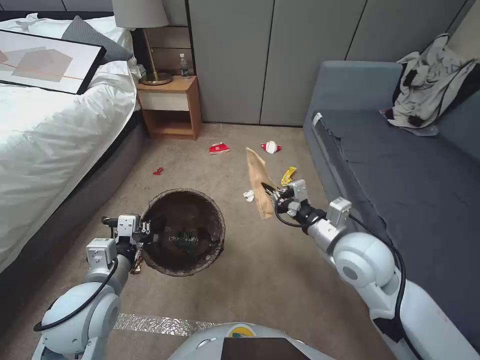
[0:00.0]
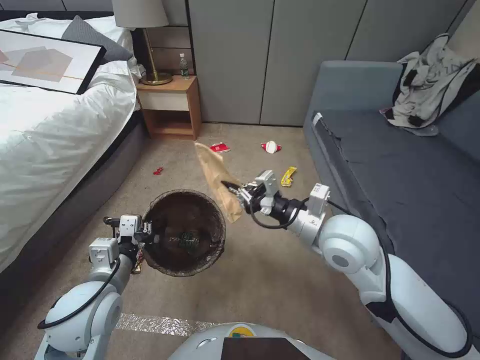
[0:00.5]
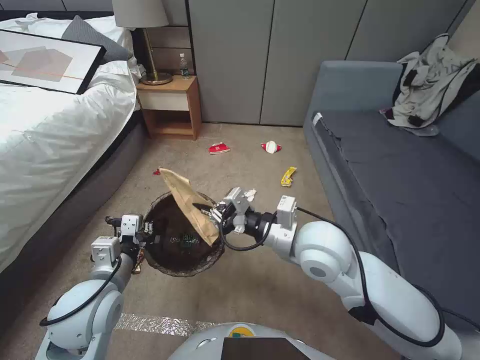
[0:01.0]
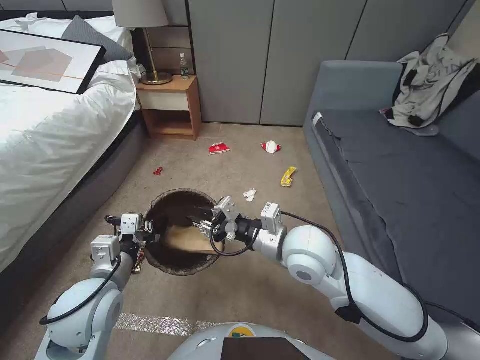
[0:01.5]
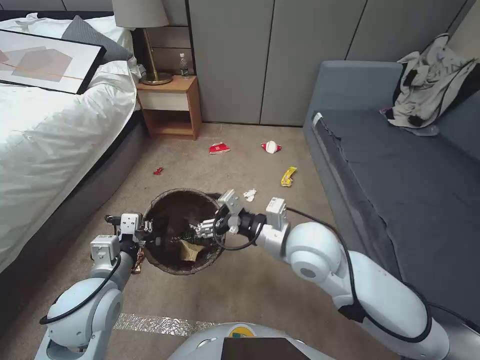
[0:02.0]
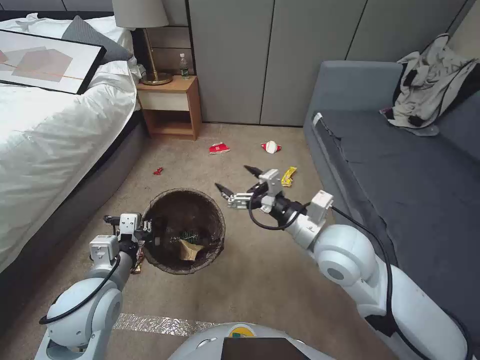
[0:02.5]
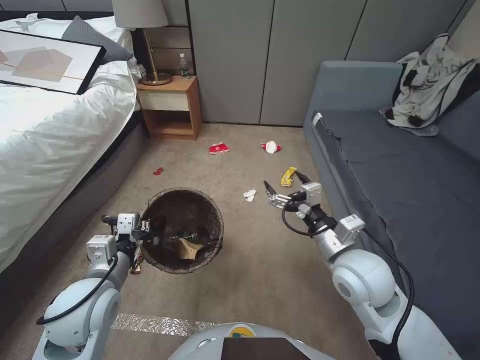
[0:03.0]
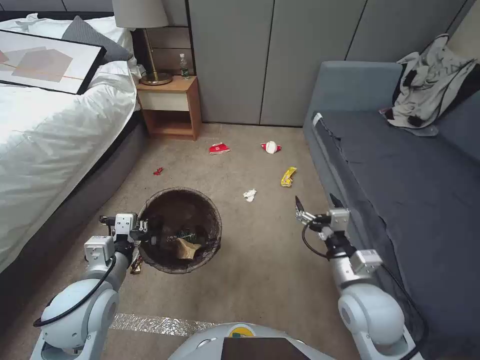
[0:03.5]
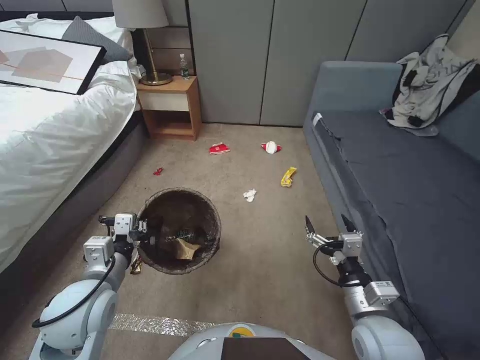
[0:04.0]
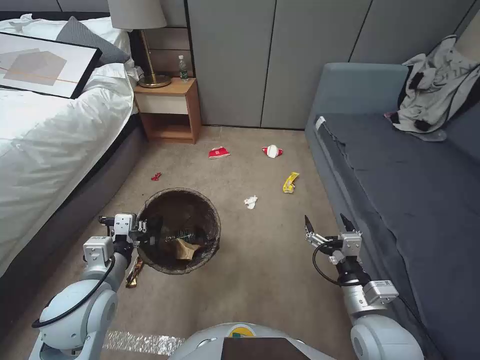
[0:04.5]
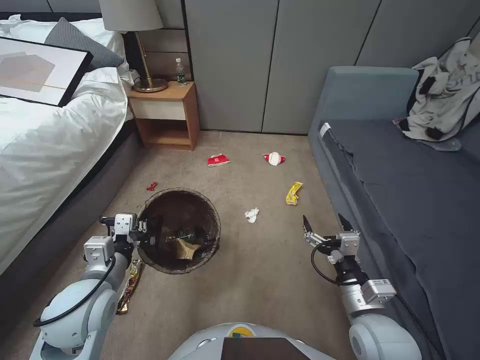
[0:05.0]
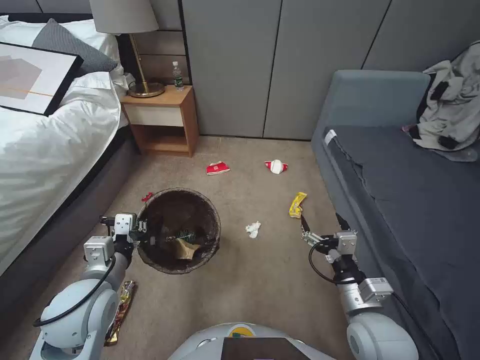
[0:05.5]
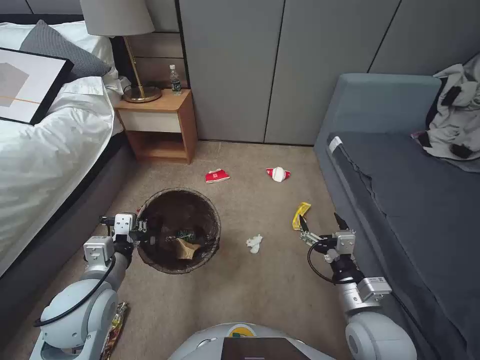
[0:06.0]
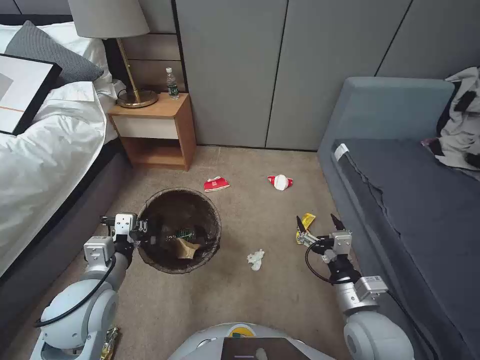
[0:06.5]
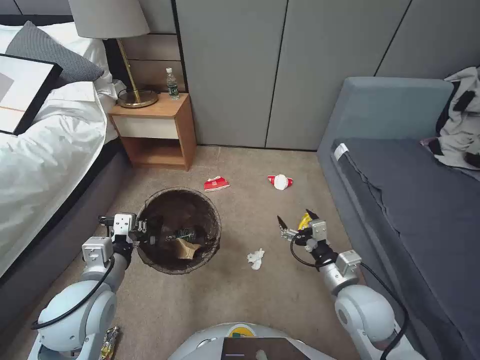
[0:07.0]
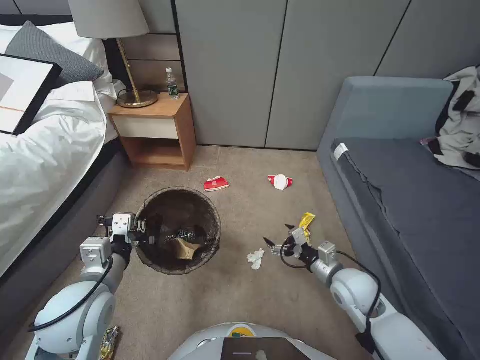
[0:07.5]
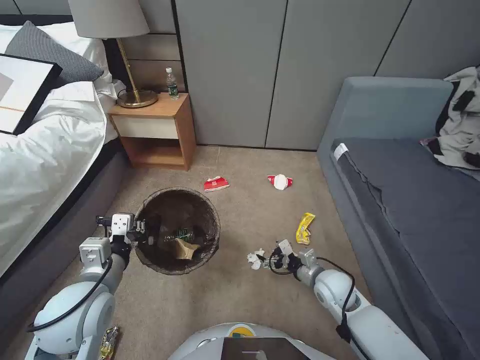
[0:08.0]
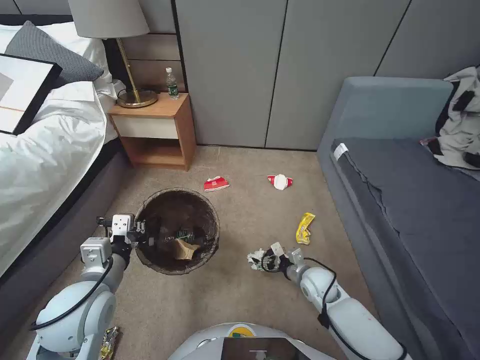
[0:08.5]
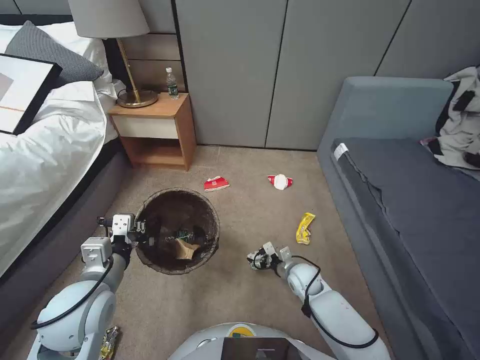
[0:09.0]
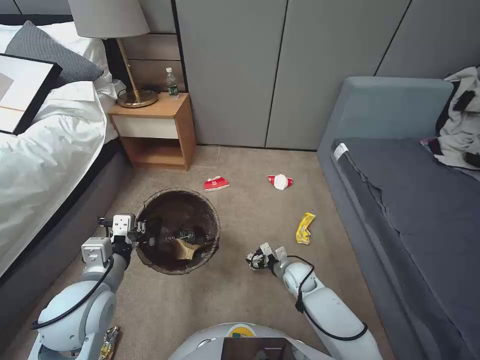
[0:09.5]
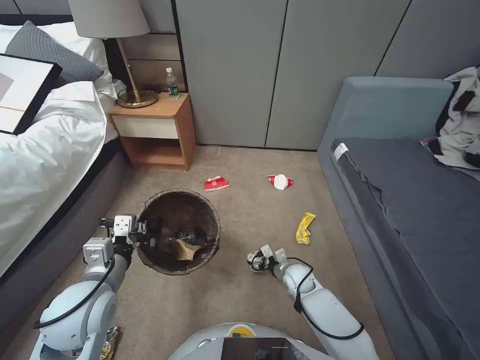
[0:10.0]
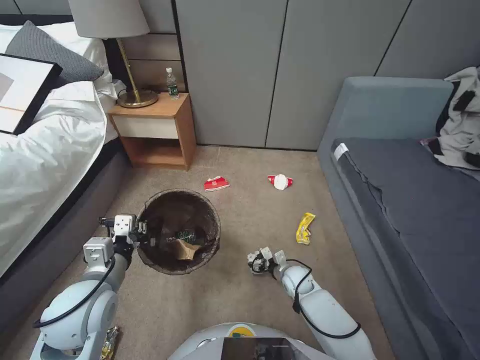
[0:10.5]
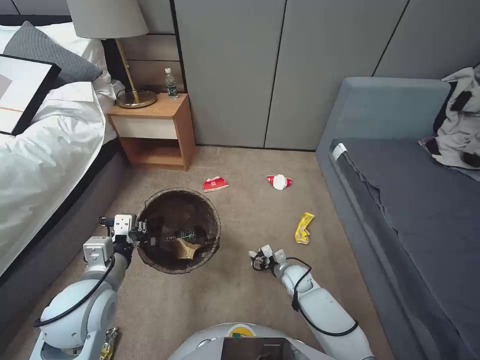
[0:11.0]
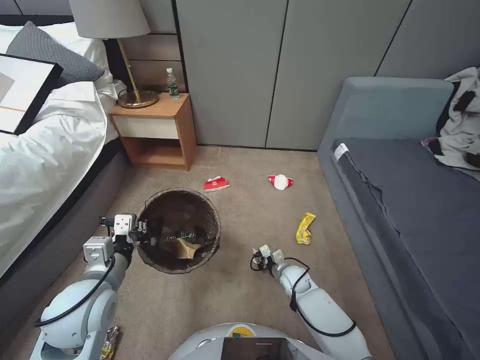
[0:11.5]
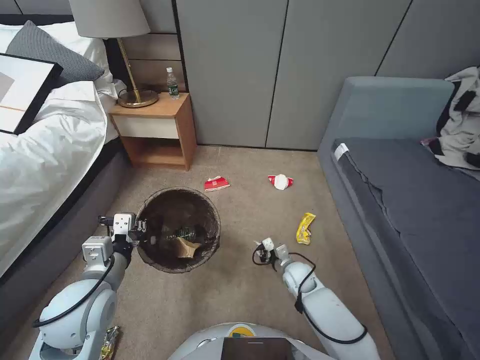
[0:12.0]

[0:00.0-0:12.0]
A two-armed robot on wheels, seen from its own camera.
Task of the whole recording: Pick up the trash bin, then pick up the garbage from the floor and place it into the trash bin.
0:00.0 to 0:02.0: The right gripper is displaced to the left by about 10 cm, and opens up.
0:02.0 to 0:04.0: The right gripper travels to the right, backward and downward by approximately 20 cm.
0:06.0 to 0:08.0: The right gripper travels forward and downward by about 15 cm.
0:08.0 to 0:10.0: The right gripper travels downward, forward and to the left by some 15 cm.
0:10.0 to 0:12.0: The right gripper closes its fingers.

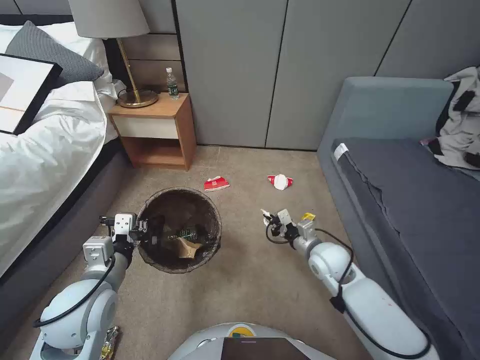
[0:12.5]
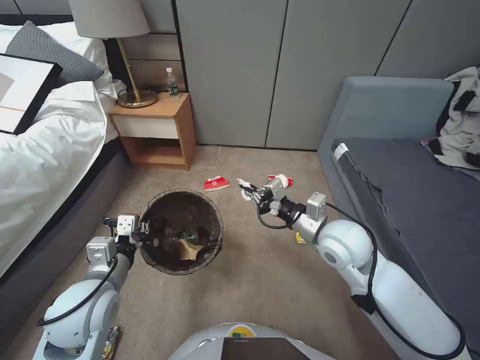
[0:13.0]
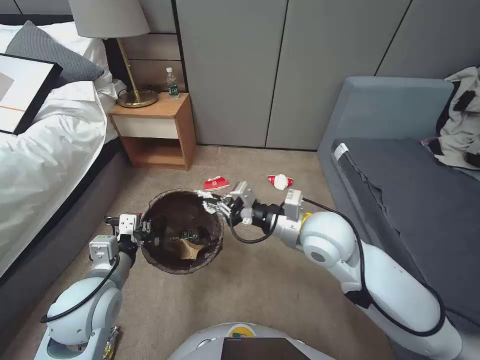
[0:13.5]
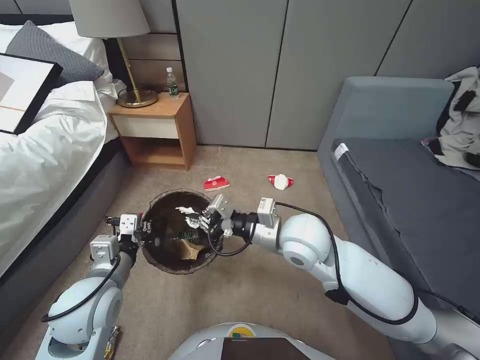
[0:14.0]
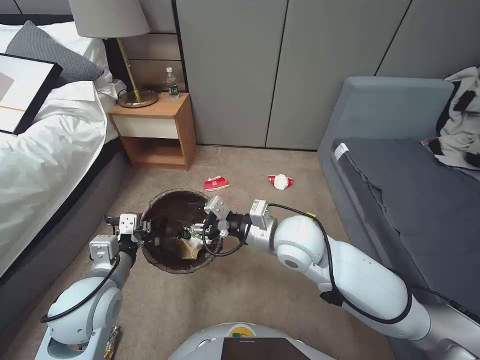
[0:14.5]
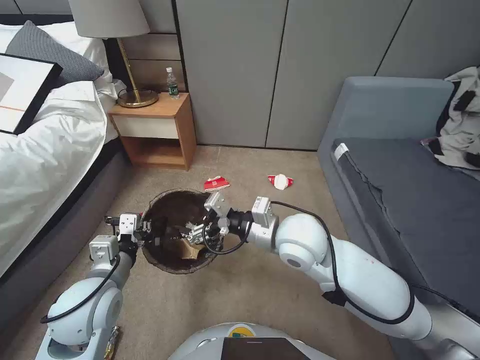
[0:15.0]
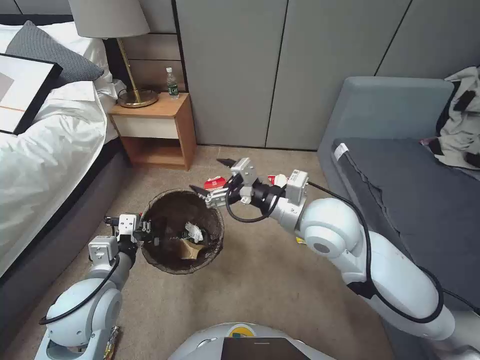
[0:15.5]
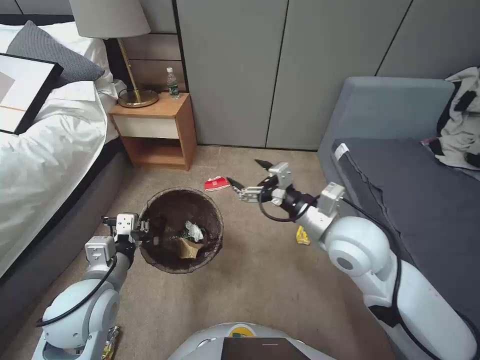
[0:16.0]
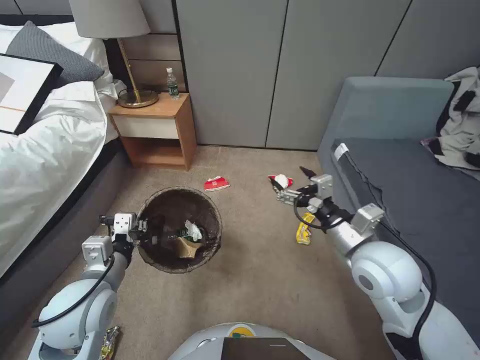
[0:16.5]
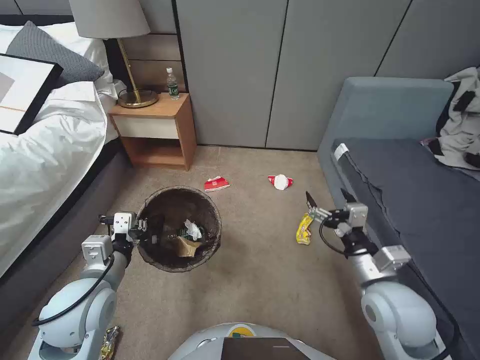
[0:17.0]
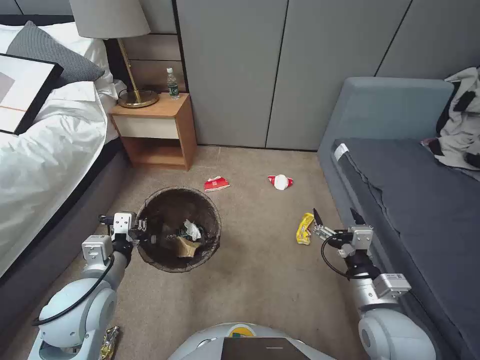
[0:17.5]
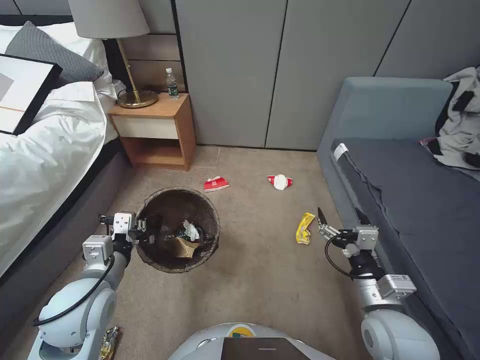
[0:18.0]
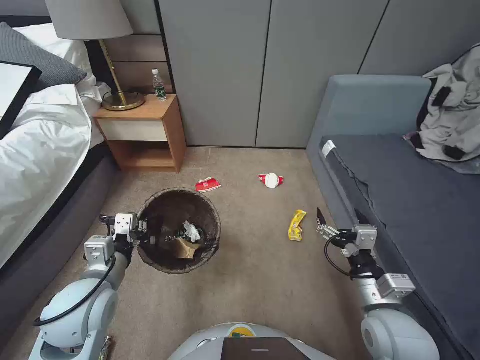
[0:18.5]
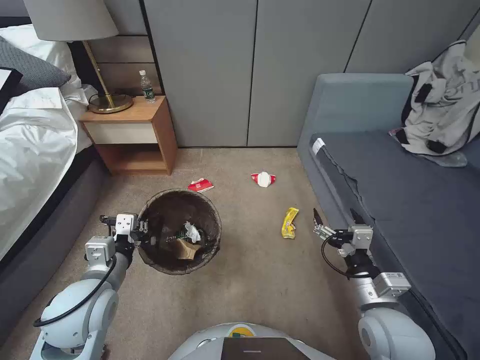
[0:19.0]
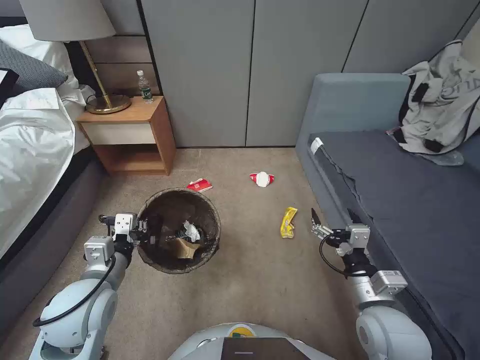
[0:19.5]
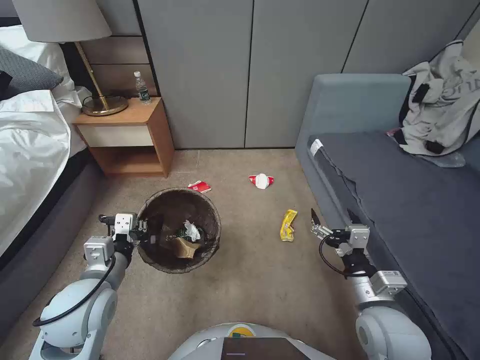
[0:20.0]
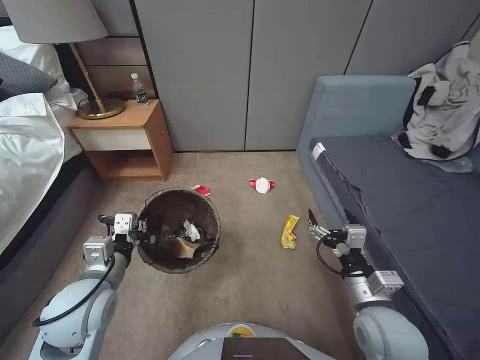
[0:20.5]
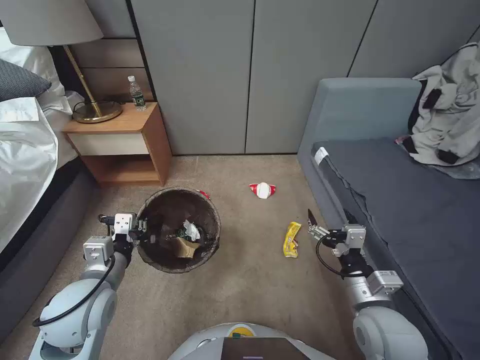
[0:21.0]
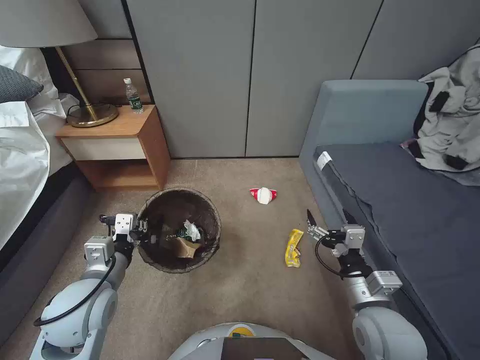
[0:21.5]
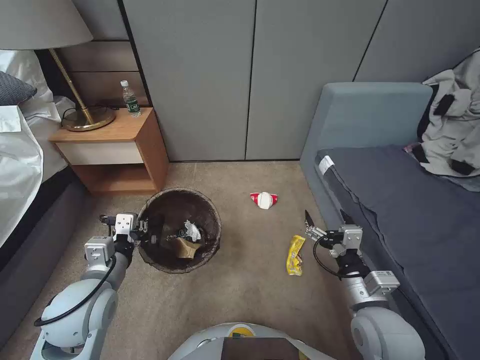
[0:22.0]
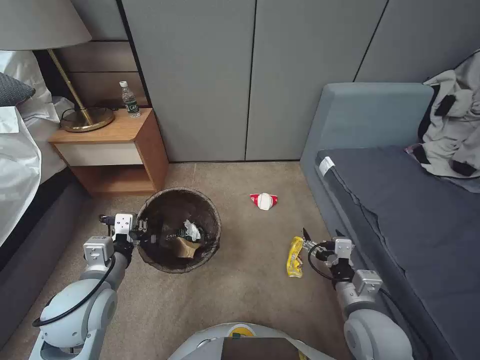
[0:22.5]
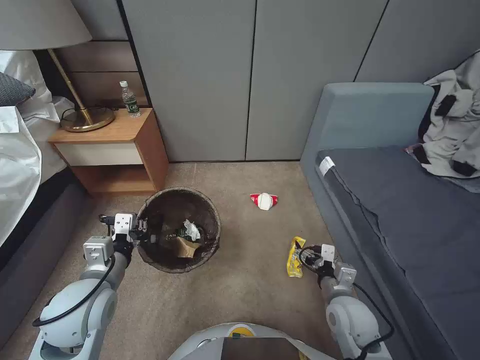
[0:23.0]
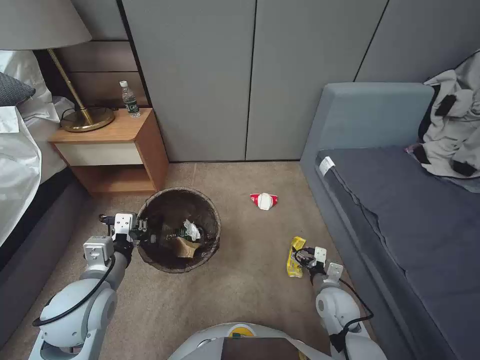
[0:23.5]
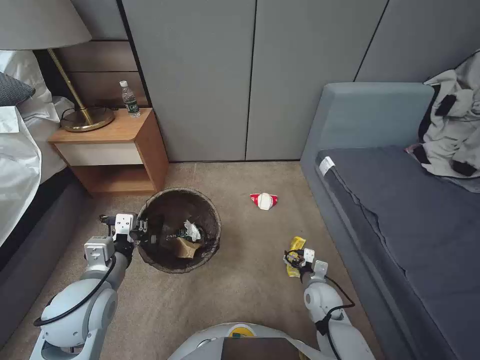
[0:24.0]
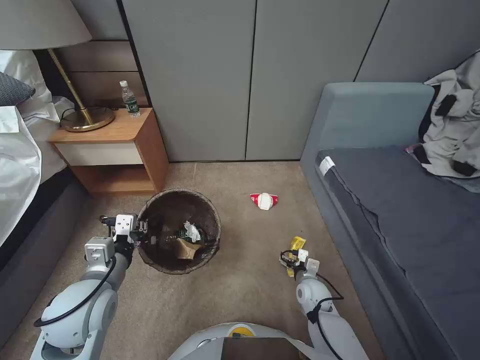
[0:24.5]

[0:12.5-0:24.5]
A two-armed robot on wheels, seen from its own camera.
Task of the whole recording: Pick up the trash bin, then pick up the garbage from the floor and place it into the trash bin.
0:12.5 to 0:14.5: The right gripper goes about 20 cm upward and to the left, and opens up.
0:14.5 to 0:16.5: The right gripper is displaced to the right by some 15 cm, and opens its fingers.
0:16.5 to 0:18.5: The right gripper moves downward and backward, some 15 cm.
0:22.5 to 0:24.5: The right gripper moves downward and forward, about 25 cm.

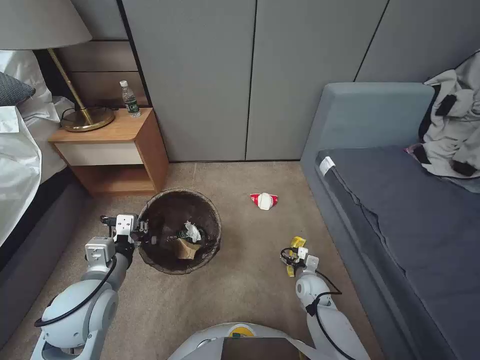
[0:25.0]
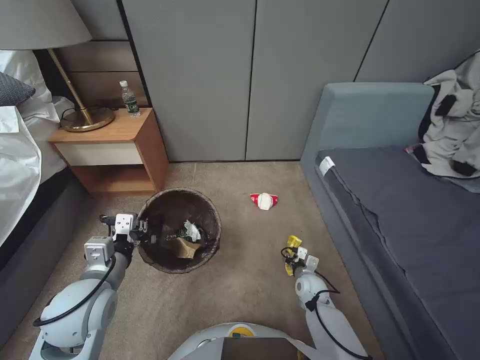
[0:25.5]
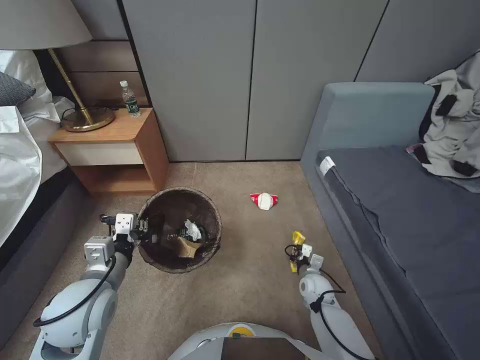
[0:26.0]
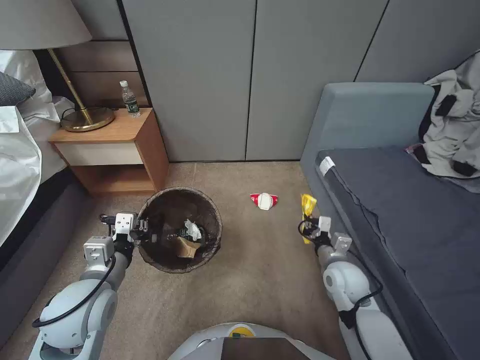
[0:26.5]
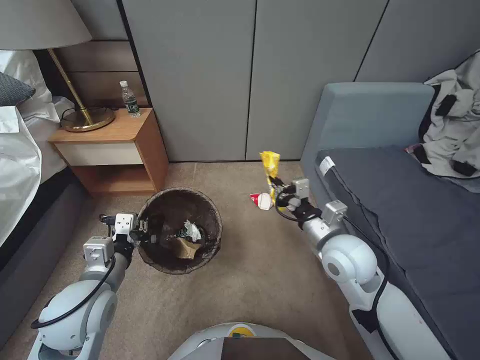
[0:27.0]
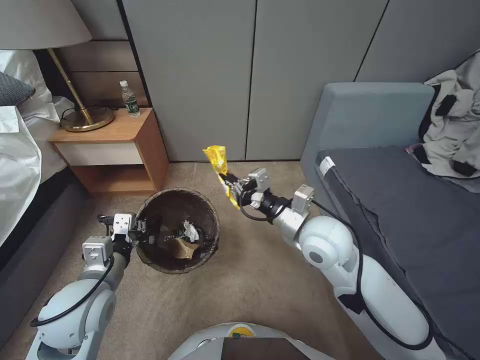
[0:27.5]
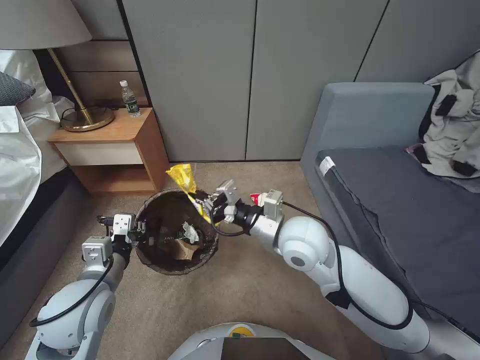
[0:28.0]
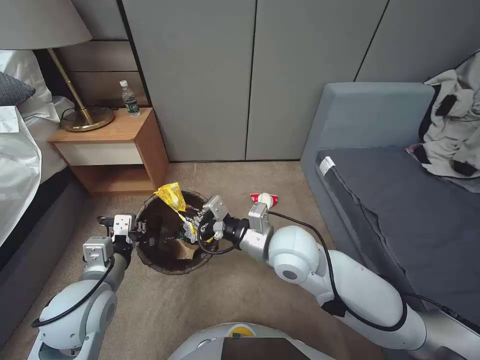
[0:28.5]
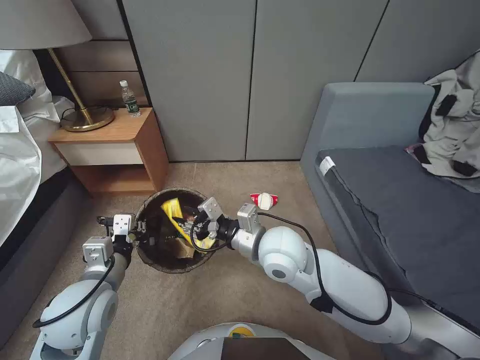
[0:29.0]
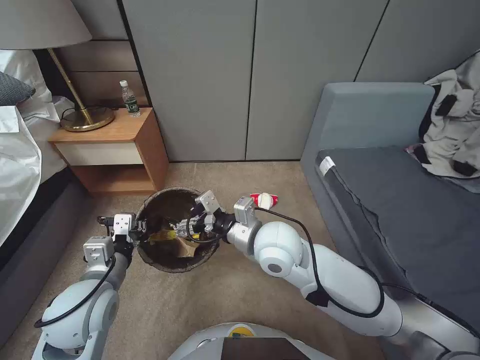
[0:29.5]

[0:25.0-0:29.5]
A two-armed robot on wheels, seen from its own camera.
Task of the whole recording: Pick up the trash bin, then pick up the garbage from the floor and place it into the trash bin.
0:25.0 to 0:27.0: The right gripper heads upward, covering about 30 cm, and closes up.
0:27.0 to 0:29.5: The right gripper is displaced to the left by some 15 cm, and opens.
